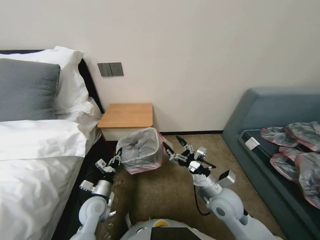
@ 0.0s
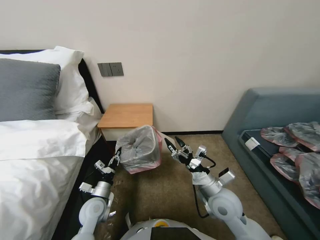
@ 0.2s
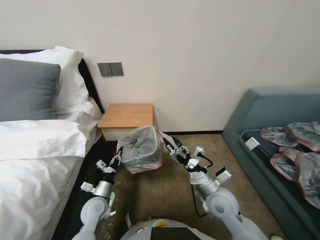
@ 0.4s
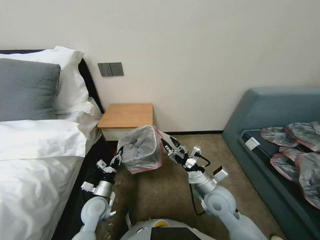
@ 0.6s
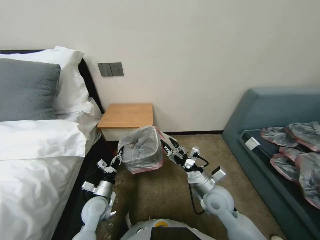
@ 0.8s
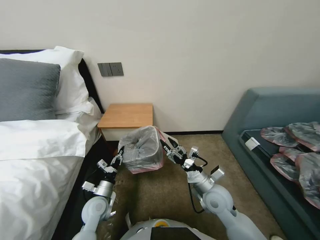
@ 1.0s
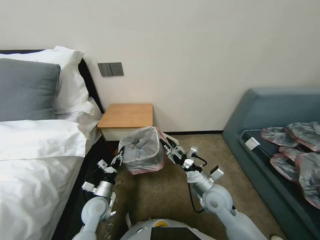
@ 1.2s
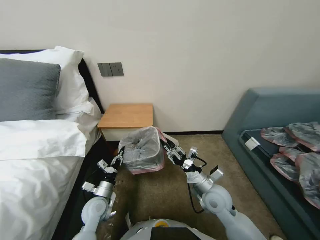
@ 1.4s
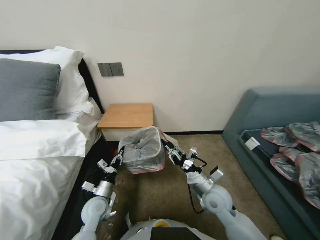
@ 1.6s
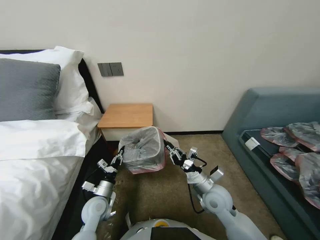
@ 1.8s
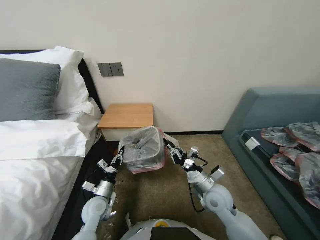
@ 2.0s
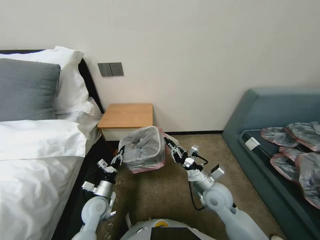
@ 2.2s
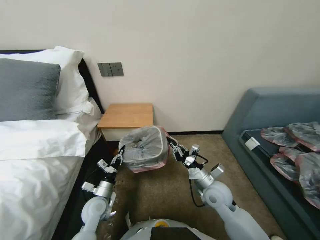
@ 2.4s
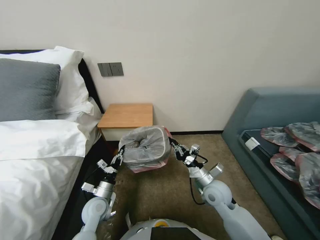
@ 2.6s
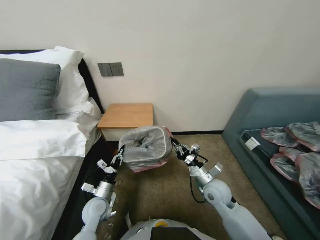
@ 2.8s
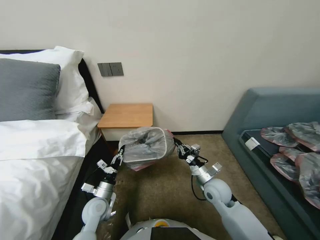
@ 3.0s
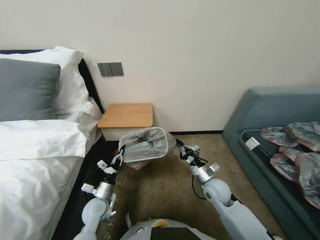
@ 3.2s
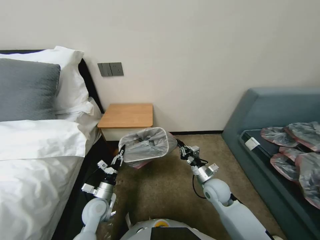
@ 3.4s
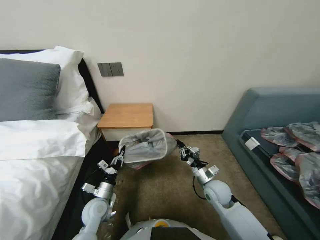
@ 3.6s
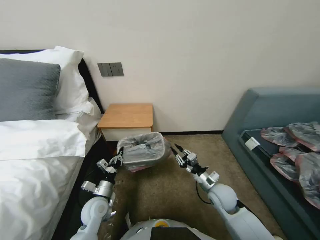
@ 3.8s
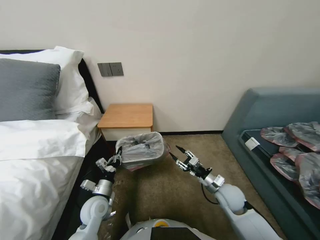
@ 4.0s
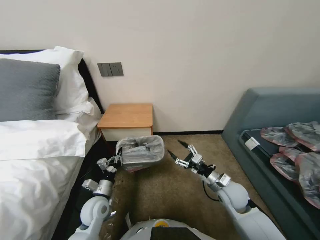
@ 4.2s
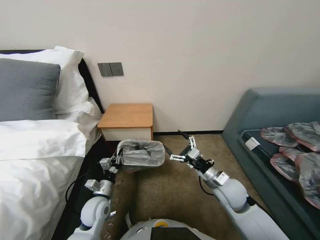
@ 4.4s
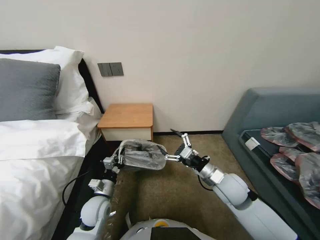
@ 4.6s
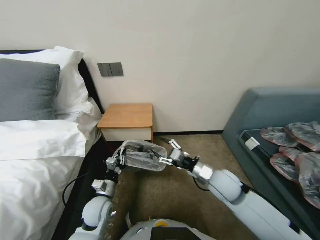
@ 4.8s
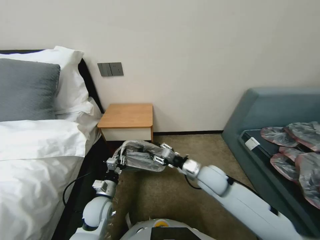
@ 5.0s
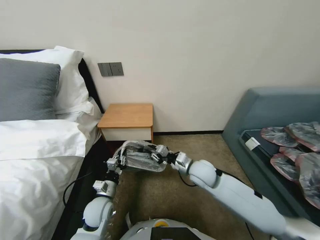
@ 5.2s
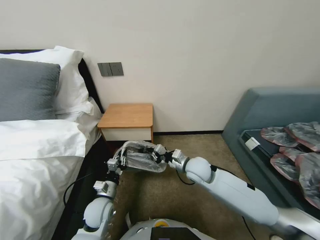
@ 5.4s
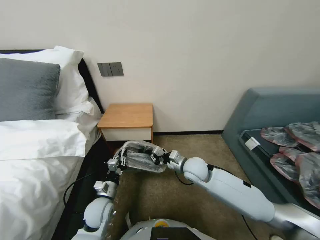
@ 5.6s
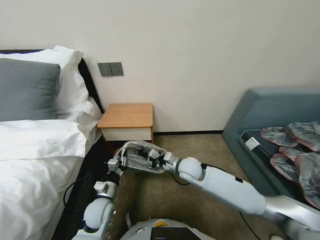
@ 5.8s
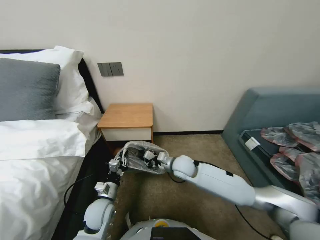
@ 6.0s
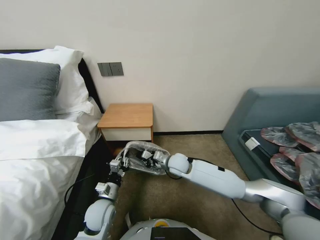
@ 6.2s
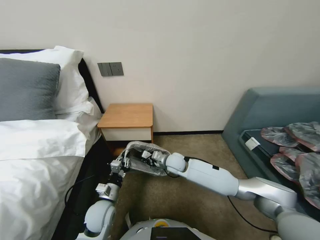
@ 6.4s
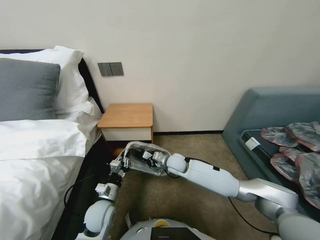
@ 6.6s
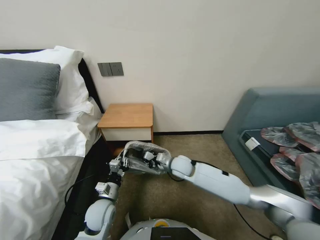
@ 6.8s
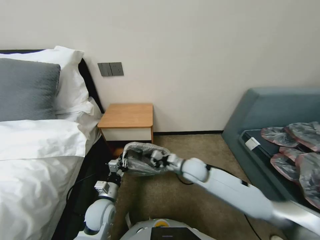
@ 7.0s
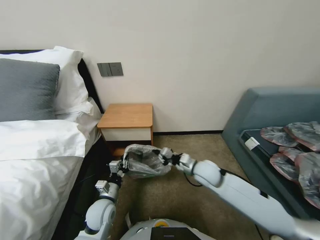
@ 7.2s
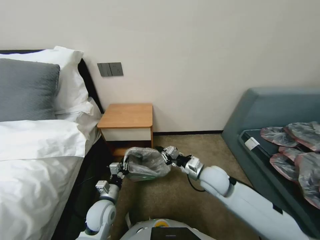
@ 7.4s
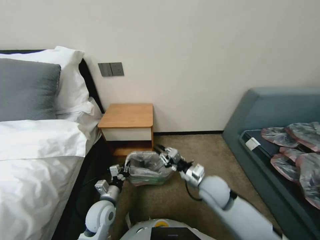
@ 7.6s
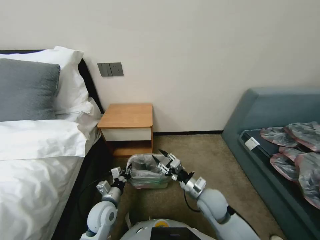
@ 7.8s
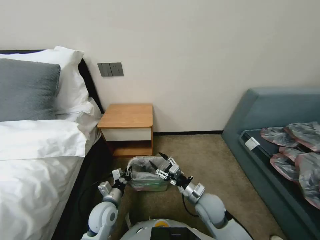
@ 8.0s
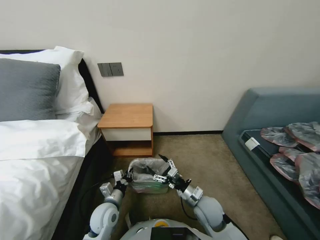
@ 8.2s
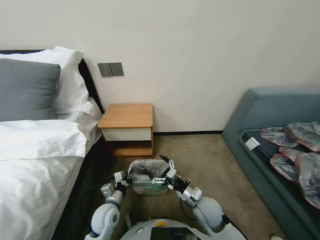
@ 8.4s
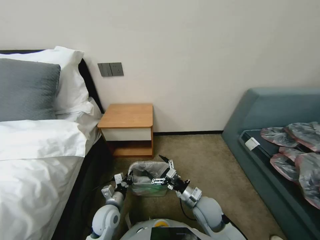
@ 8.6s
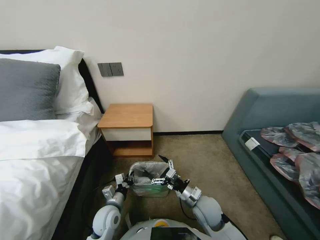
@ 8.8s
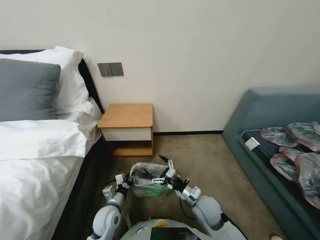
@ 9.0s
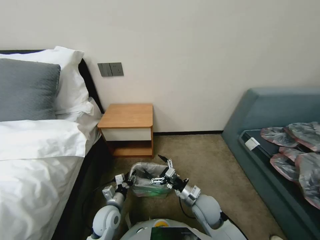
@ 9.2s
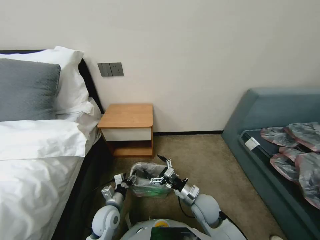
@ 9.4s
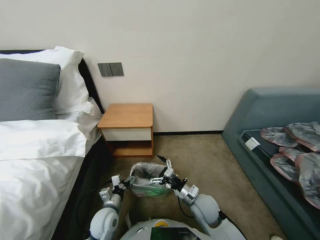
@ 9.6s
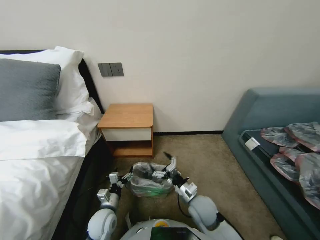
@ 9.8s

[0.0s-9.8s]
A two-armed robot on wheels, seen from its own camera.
Task of the whole recording: Pick up the garbage bag from the table and place it over the trash can.
0.0s to 1.4s: The right gripper closes up.
1.4s to 2.8s: The right gripper closes up.
2.8s to 4.2s: The right gripper goes some 5 cm to the right, and opens.
4.2s to 5.6s: The right gripper moves to the left, forward and upward, some 15 cm, and closes its fingers.
7.0s to 8.4s: The right gripper is displaced backward by roughly 15 cm, and opens.
8.4s to 9.8s: The left gripper opens up.

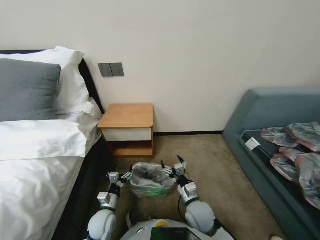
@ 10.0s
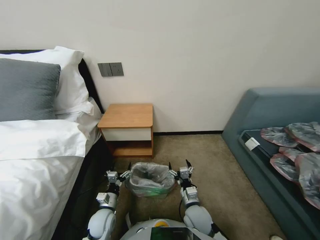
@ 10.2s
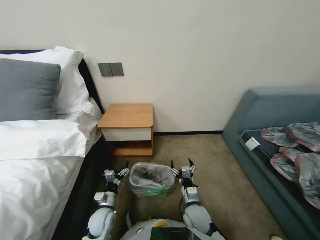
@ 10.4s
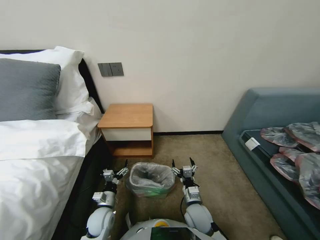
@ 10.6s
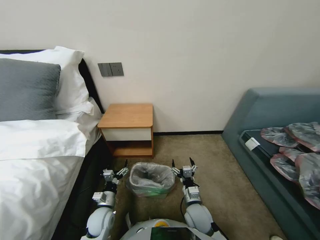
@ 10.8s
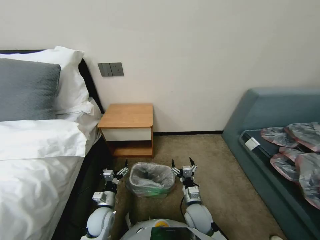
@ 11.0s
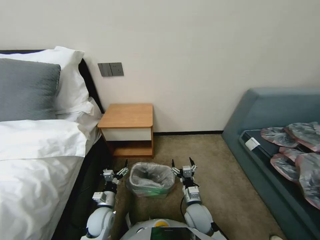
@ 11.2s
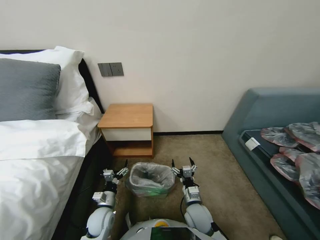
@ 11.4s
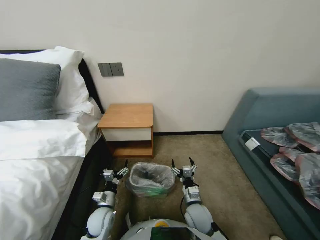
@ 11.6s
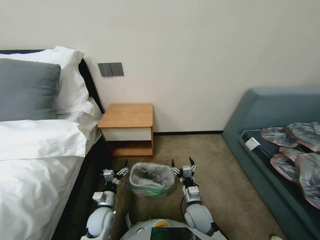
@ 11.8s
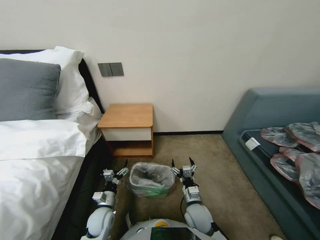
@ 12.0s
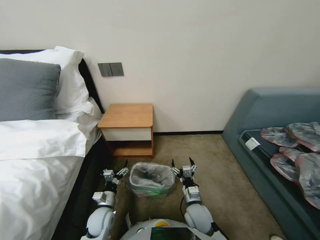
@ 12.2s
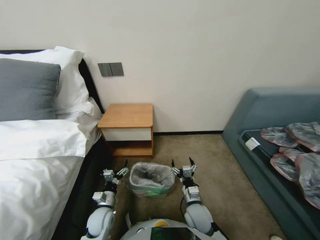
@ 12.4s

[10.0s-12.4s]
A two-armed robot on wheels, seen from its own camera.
Task of the whole recording: Pick up the garbage bag from the table and place it over the trash can.
10.0s to 11.2s: The grippers move only a little.
11.2s to 12.4s: Neither gripper changes place.
